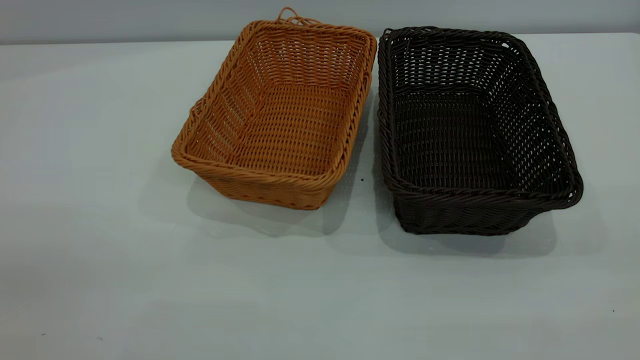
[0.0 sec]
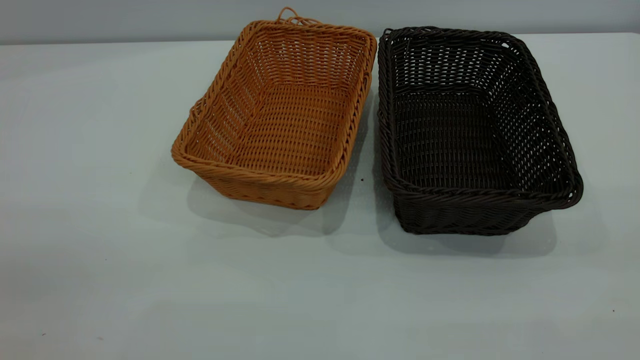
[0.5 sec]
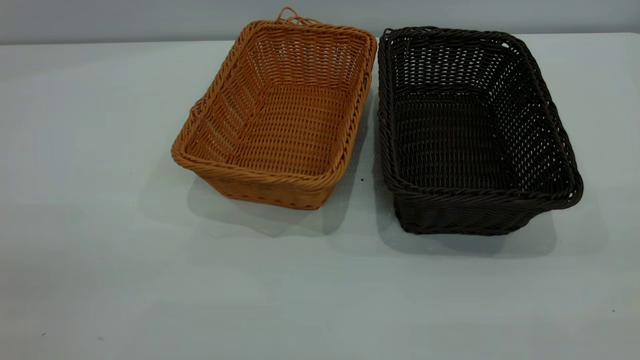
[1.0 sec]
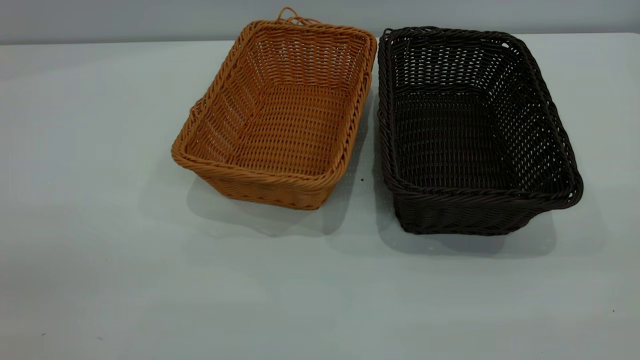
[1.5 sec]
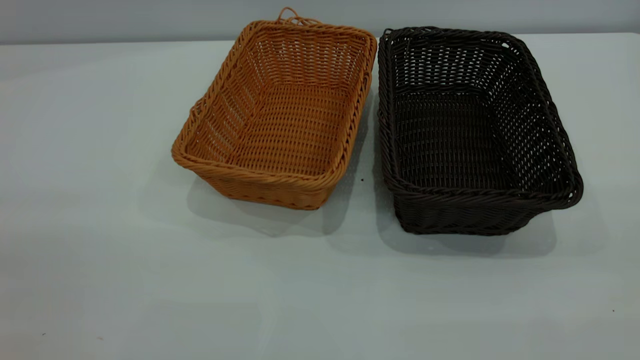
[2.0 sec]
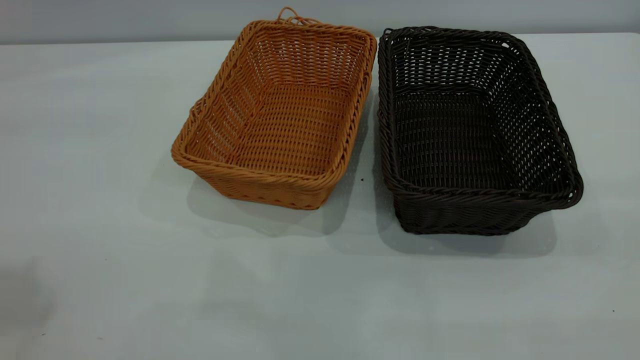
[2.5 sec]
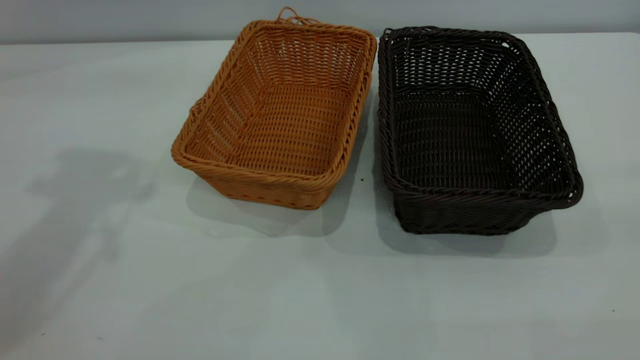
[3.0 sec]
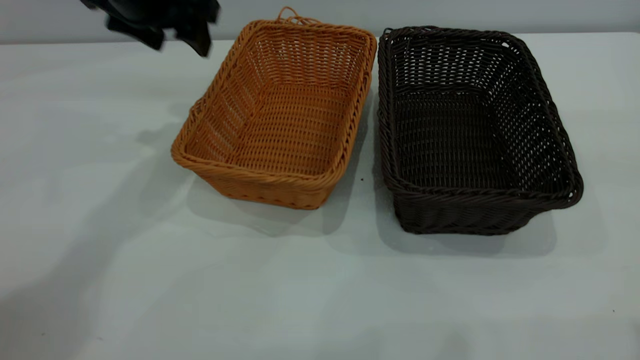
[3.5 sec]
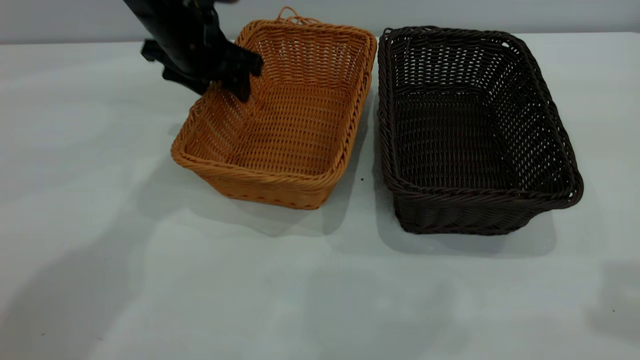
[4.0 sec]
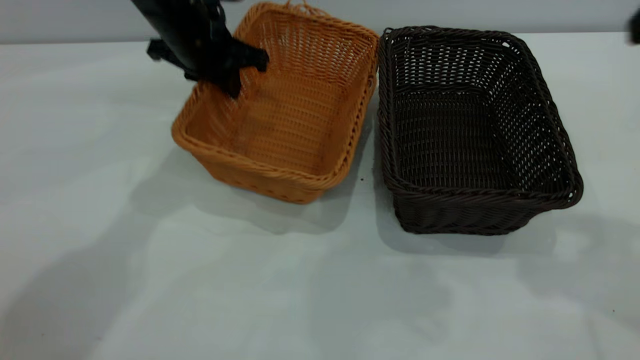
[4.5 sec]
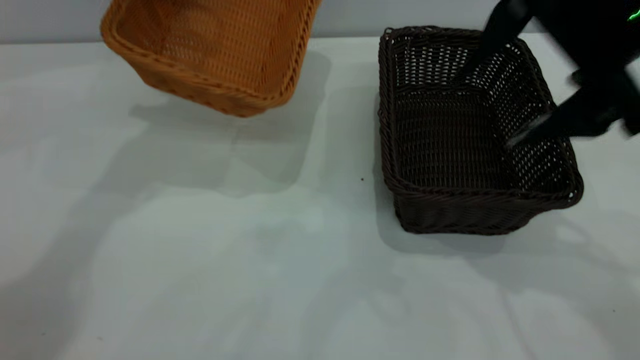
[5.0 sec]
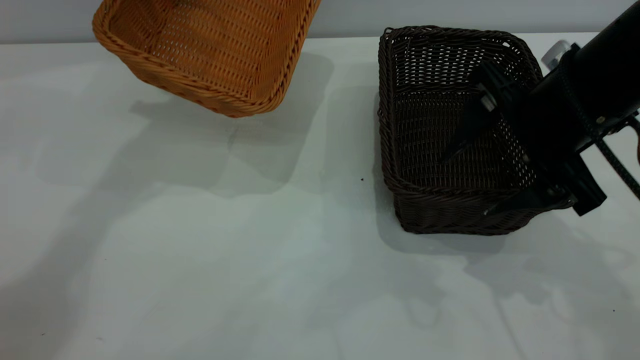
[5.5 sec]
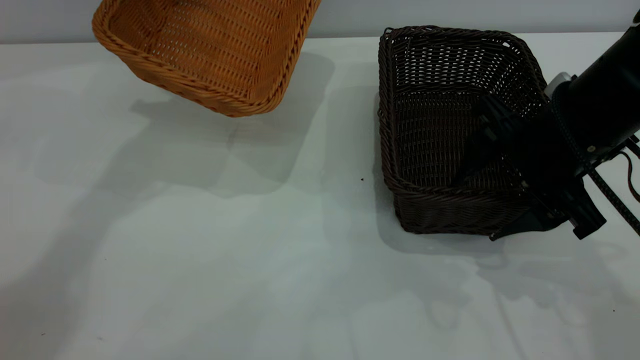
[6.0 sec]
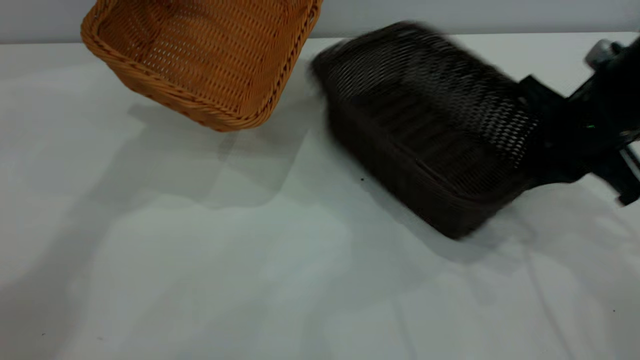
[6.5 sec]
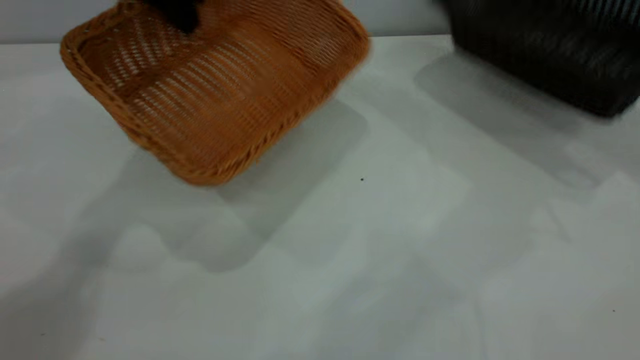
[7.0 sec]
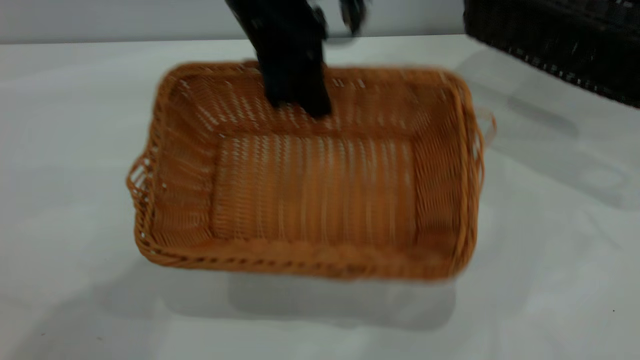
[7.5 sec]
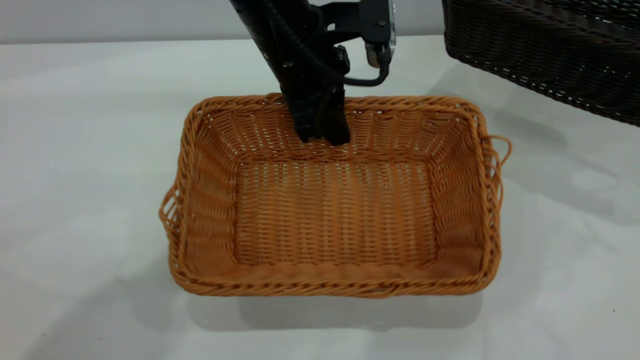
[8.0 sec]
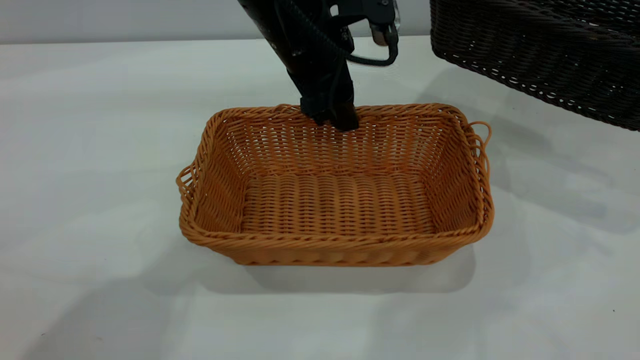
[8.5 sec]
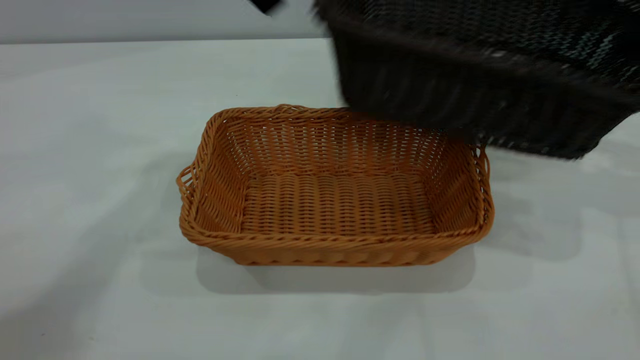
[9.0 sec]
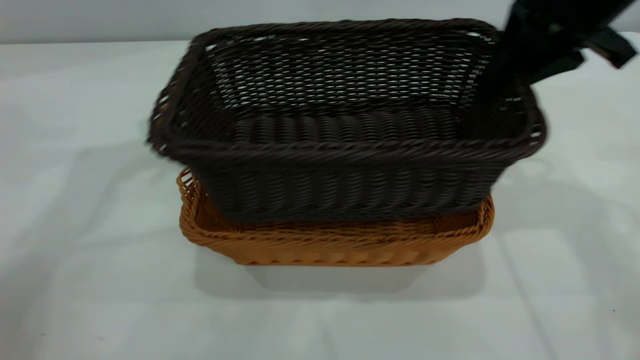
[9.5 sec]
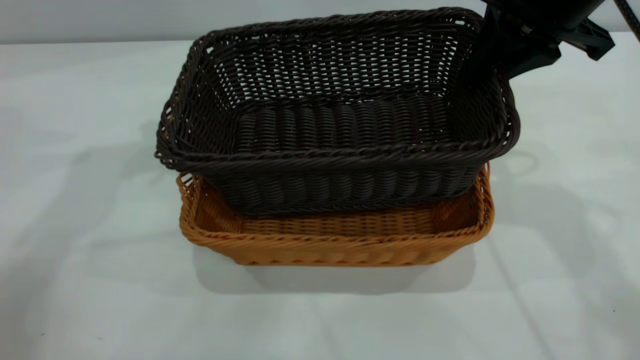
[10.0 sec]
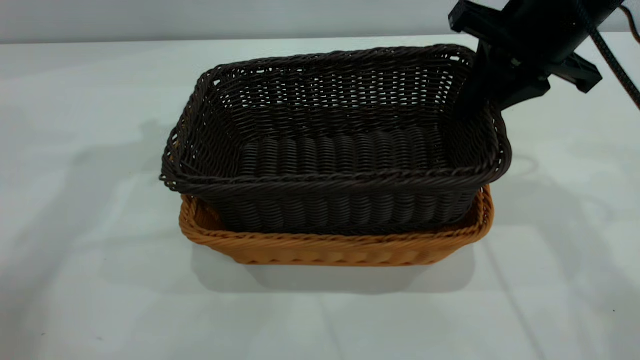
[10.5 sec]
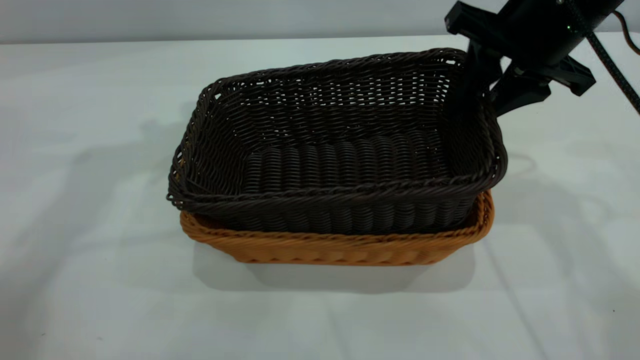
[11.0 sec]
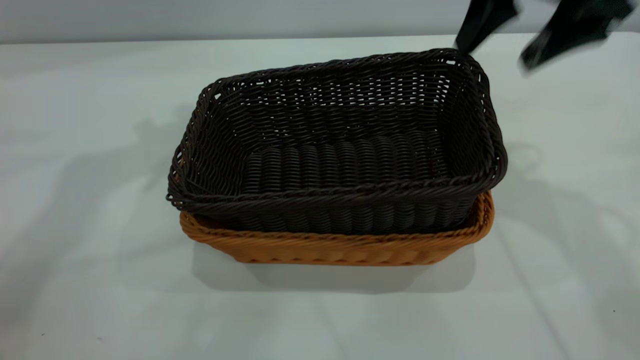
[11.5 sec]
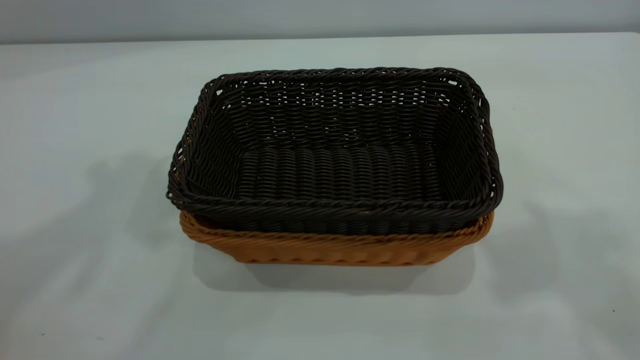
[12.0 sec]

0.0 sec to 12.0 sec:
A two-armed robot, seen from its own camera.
Task of the whole recording: the left gripper grasp the brown basket and place it in the center of the table, the right gripper grasp the black basket and place it inside the brown one.
Step, 0.0 sec to 6.5 sec: Pick up the light basket with the right gripper.
Step, 7.0 sec to 8.5 sec: Place the light-colored basket in the center.
Step, 9.0 sec to 11.0 sec: Place the dark basket on top of the light basket.
2.0 sec to 4.0 sec: The right gripper moves forward, about 20 cm. The left gripper goes approximately 50 cm forward and downward.
4.0 sec to 6.0 sec: The right gripper moves downward and forward, approximately 25 cm. Meanwhile the left gripper is displaced upward by roughly 15 cm, and closes up.
6.0 sec to 8.0 sec: The left gripper heads to the right, downward and backward, covering approximately 20 cm. Meanwhile the right gripper is displaced to the right and upward by about 25 cm, and closes.
8.0 sec to 10.0 sec: The left gripper shifts about 25 cm to the left and upward, and opens its fingers. The right gripper travels to the left by some 25 cm.
10.0 sec to 12.0 sec: The two grippers go about 25 cm upward and backward. The right gripper opens its fingers.
